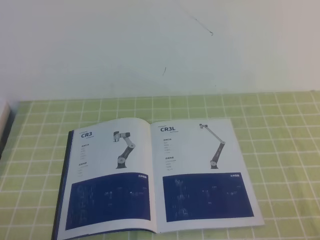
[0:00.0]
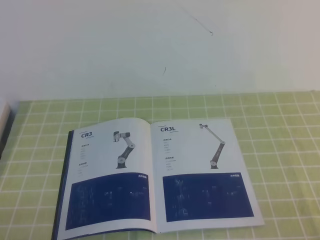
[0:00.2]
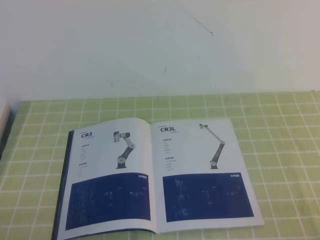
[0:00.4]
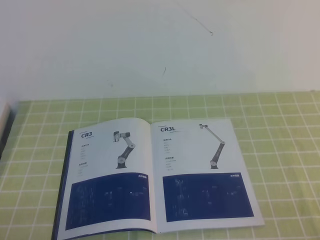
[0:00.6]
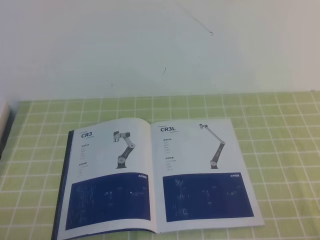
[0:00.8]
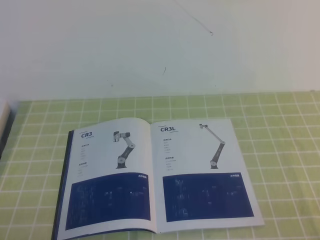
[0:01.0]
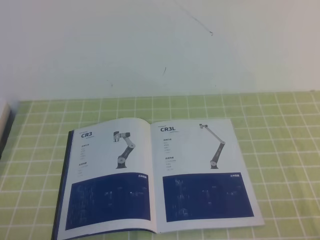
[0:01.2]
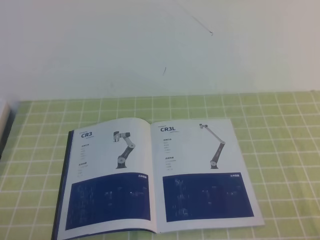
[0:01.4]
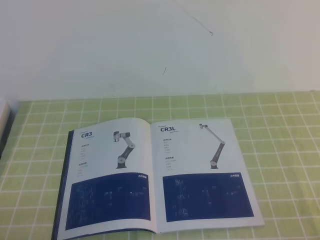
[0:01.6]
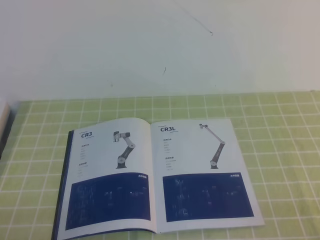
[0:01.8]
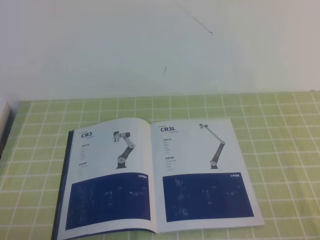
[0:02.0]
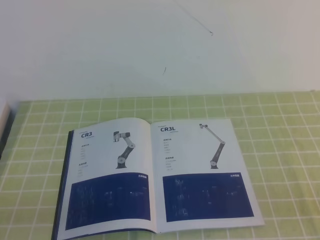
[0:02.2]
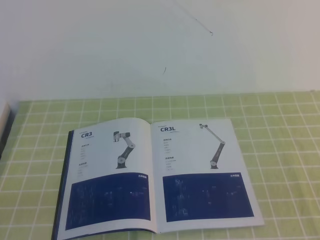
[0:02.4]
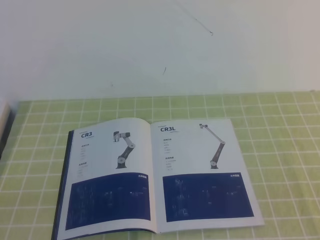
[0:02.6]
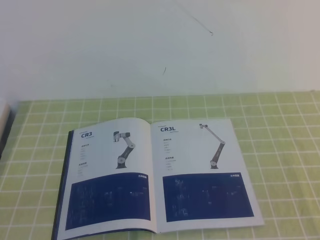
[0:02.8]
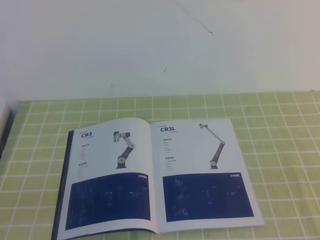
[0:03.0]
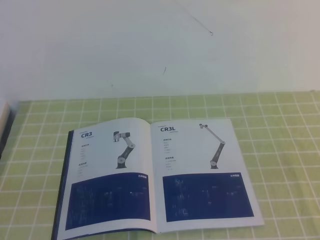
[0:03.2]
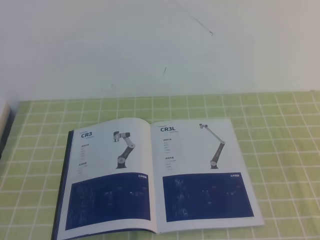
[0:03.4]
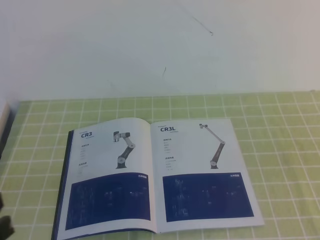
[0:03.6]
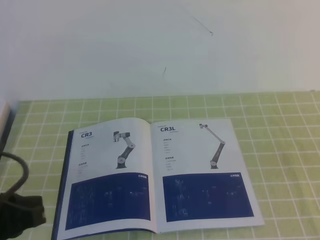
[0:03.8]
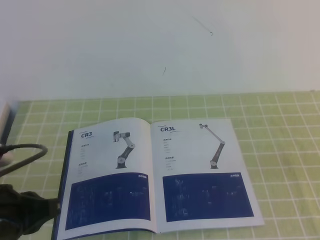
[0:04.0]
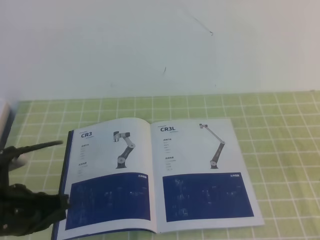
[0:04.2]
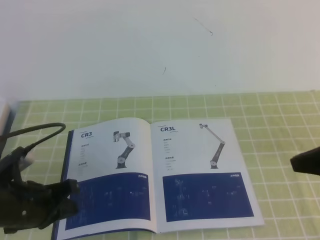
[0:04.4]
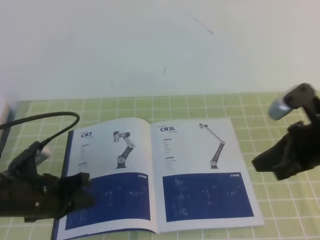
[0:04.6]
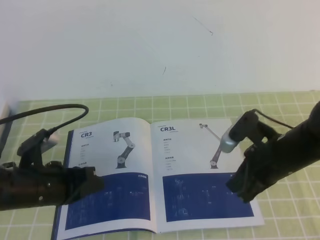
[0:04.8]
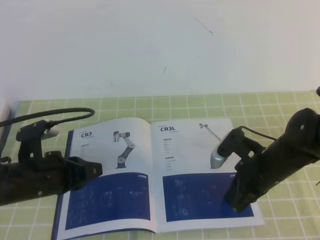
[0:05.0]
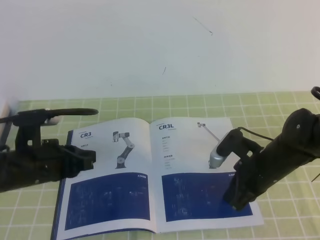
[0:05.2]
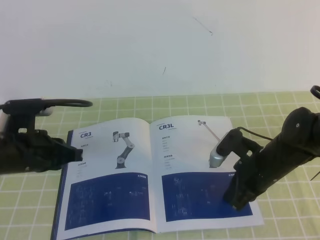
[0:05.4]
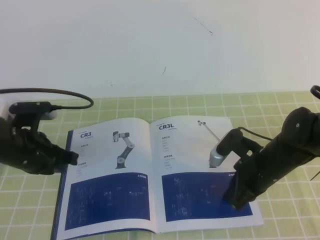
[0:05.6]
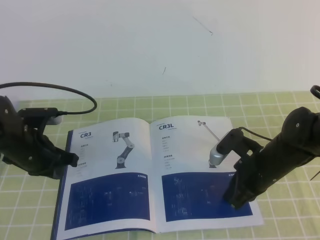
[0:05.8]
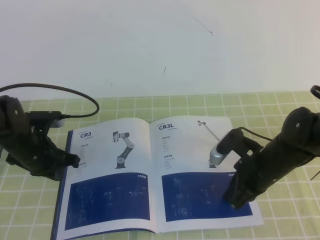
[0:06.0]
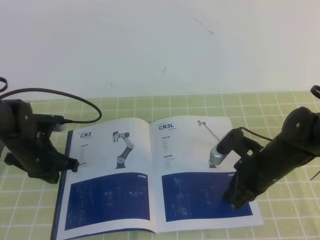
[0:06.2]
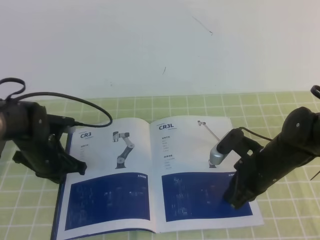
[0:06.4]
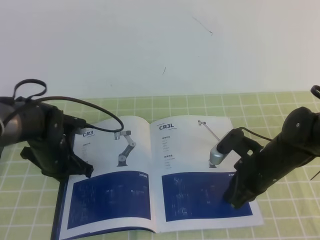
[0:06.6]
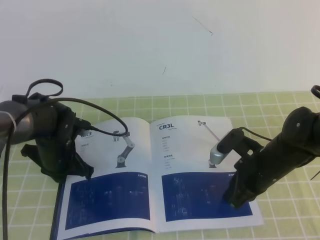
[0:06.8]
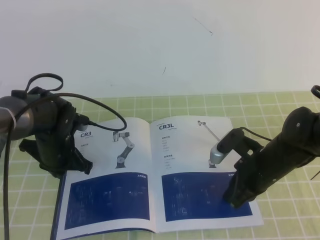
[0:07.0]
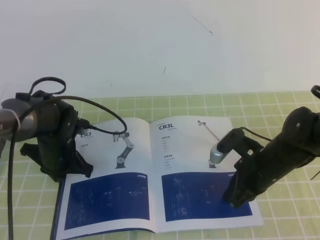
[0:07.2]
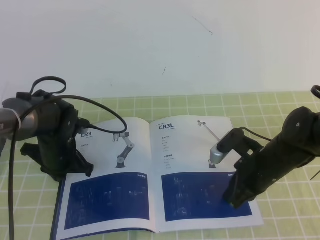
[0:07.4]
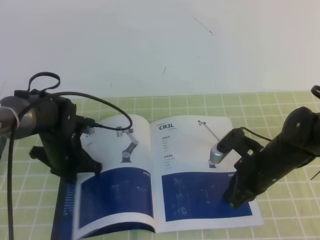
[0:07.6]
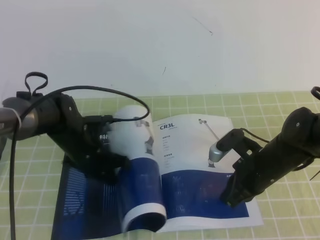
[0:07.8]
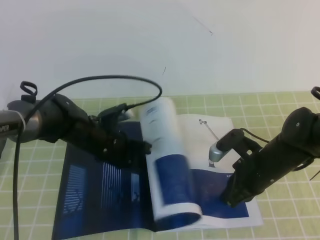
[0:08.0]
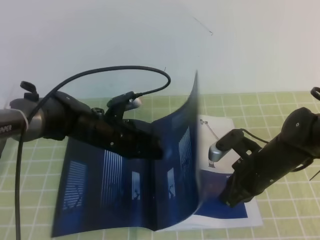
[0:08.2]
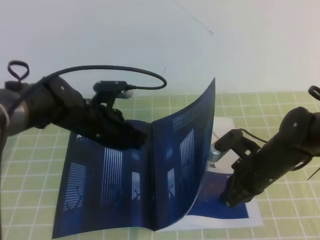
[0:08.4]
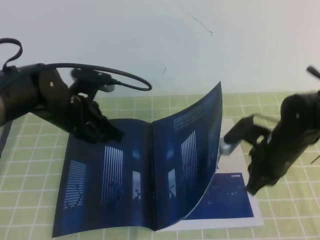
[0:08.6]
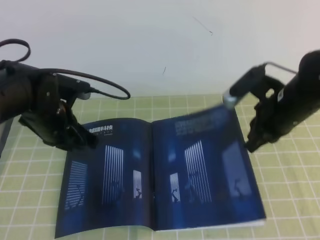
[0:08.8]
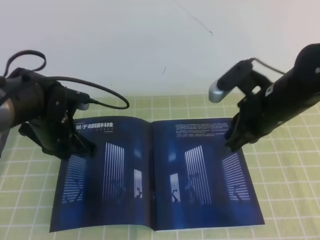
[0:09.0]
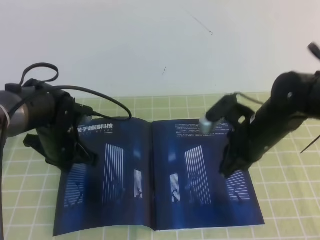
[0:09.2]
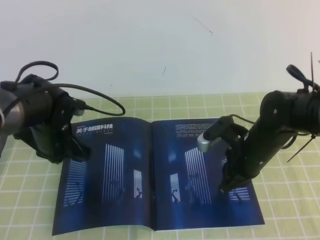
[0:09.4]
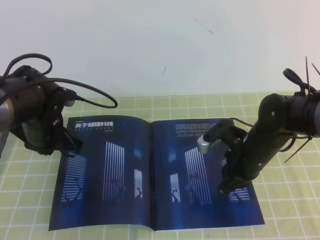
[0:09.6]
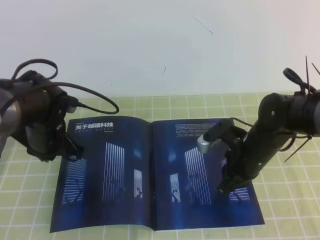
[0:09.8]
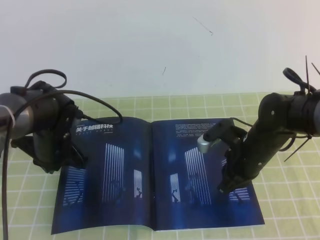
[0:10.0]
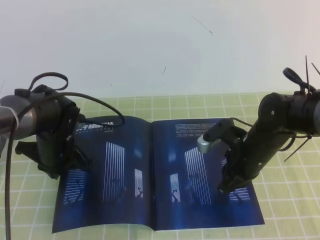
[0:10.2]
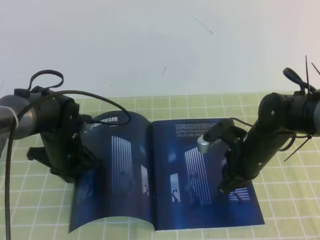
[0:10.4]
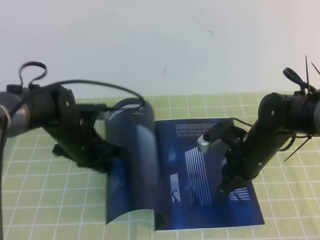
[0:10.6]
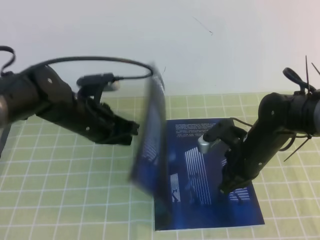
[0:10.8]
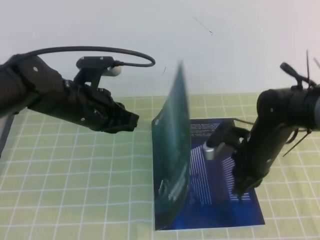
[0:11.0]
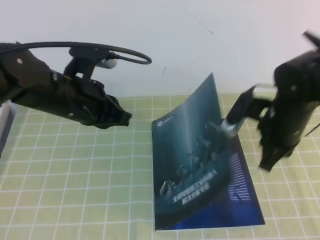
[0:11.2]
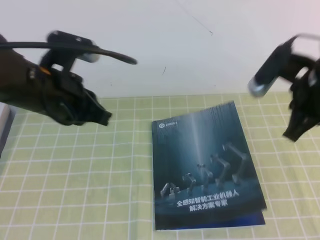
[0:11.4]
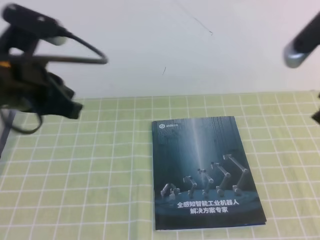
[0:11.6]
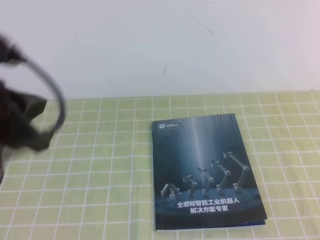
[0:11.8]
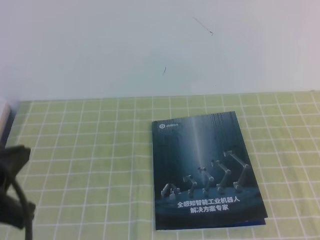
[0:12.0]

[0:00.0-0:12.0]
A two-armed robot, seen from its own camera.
Task of the whole recording: on the green tablecloth, hold the book with one hand and close it with the other.
0:00.0 to 0:01.6: Neither gripper changes place.
0:03.0 to 0:04.4: The grippers both shift forward by some 20 cm.
0:04.4 to 0:06.0: The left gripper heads forward, covering approximately 15 cm. Meanwhile the right gripper heads downward, to the left and forward, covering approximately 20 cm.
0:06.0 to 0:07.6: The left gripper goes about 5 cm to the right.
0:07.6 to 0:09.0: The left gripper travels upward by some 5 cm; the right gripper goes about 10 cm upward.
0:09.0 to 0:10.4: The right gripper goes approximately 10 cm downward. Meanwhile the left gripper is displaced downward by roughly 5 cm.
0:10.4 to 0:12.0: The right gripper shifts approximately 30 cm upward, backward and to the right. Meanwhile the left gripper goes approximately 30 cm backward and upward.

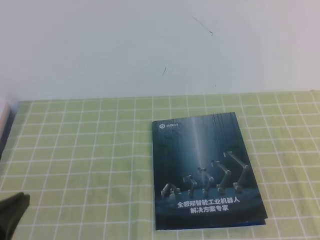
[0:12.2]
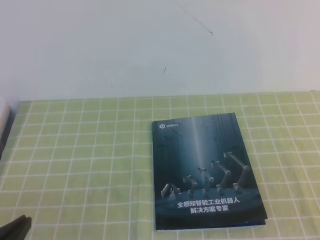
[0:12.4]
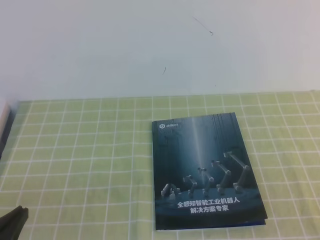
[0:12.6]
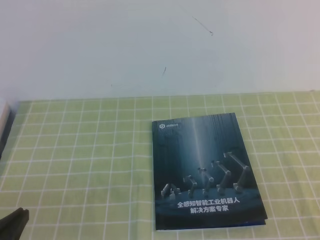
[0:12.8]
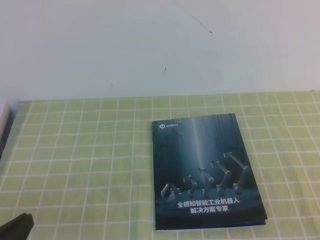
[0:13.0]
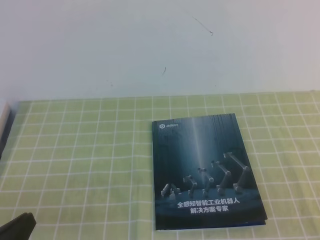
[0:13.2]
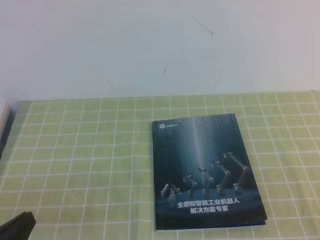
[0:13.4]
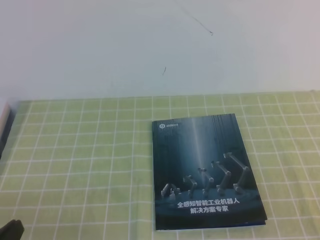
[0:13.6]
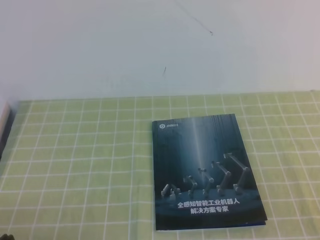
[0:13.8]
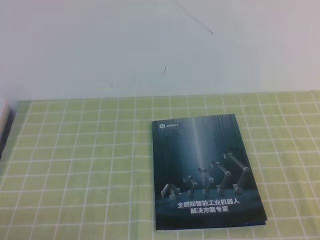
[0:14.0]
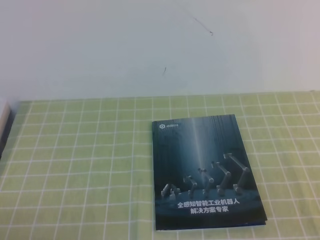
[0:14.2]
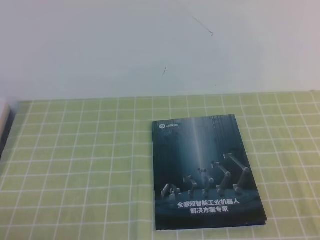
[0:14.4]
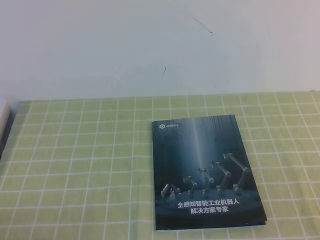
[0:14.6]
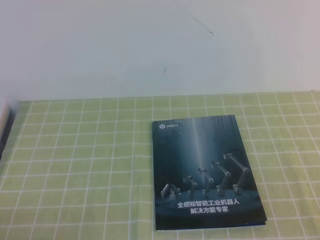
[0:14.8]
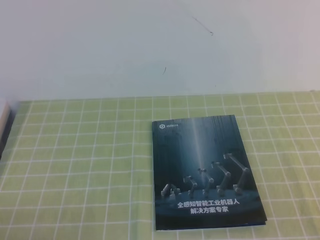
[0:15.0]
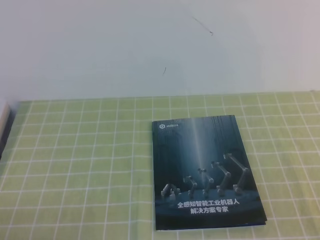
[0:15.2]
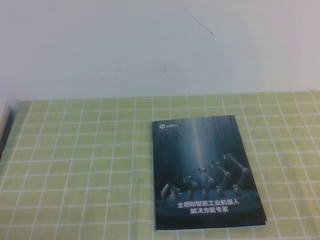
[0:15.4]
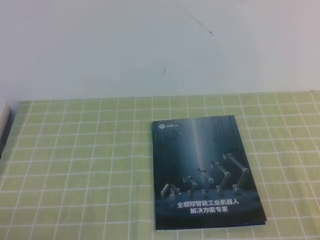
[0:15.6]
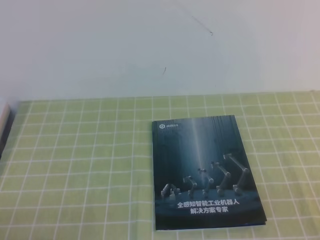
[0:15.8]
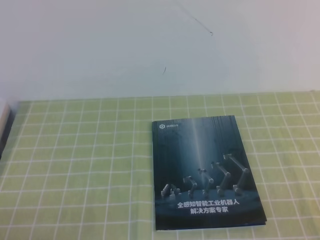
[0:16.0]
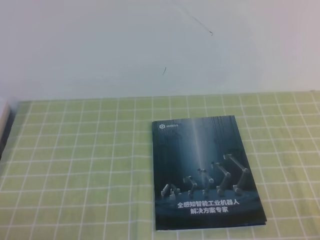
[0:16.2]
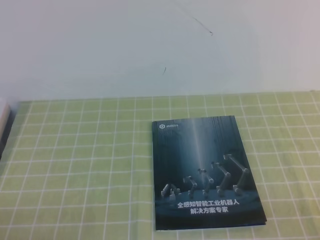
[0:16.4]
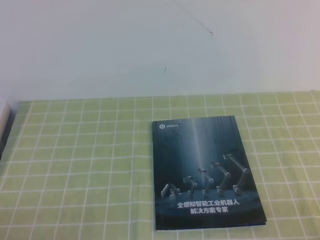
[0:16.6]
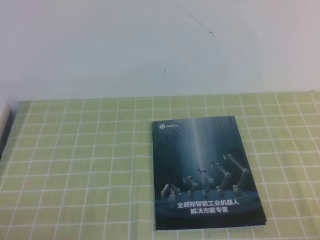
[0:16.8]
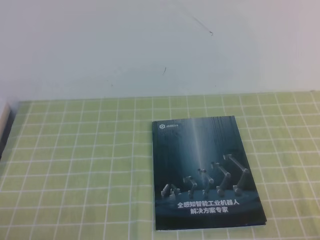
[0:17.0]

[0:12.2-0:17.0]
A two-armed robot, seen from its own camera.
Task of the whole recording: on the green tablecloth, hold the book with one hand and close it with the other.
Step, 0:12.2 to 0:17.0: Close the open book.
0:12.2 to 0:13.8: The left gripper shifts roughly 10 cm downward.
